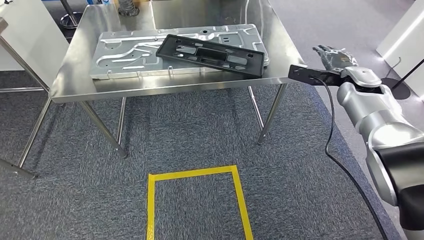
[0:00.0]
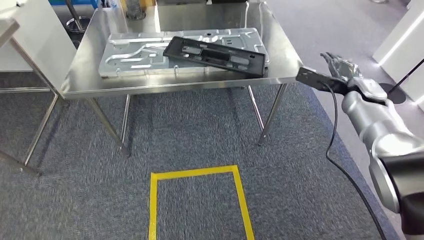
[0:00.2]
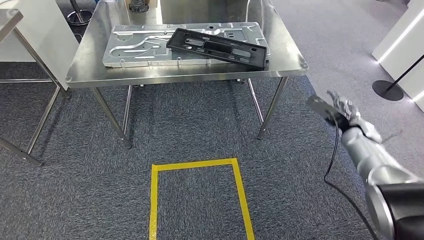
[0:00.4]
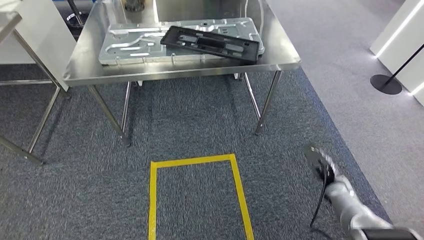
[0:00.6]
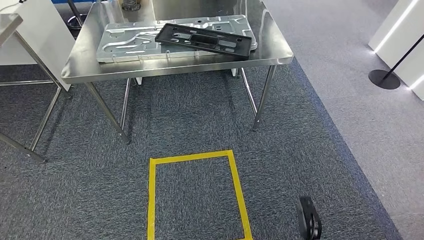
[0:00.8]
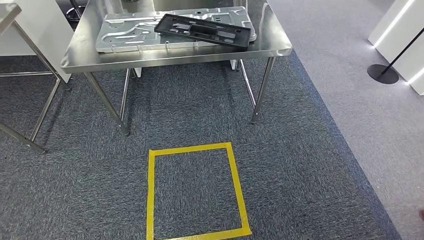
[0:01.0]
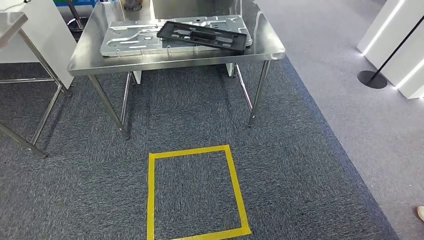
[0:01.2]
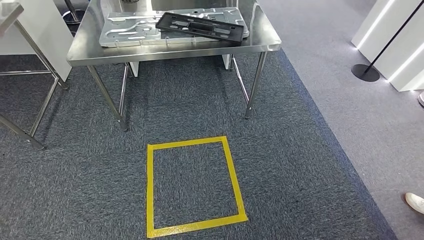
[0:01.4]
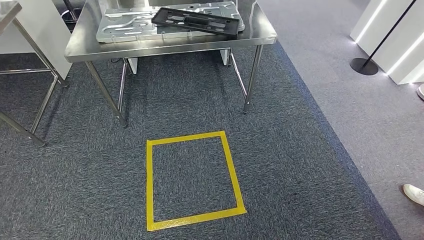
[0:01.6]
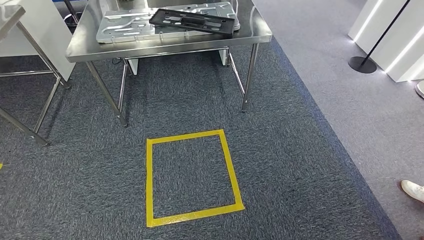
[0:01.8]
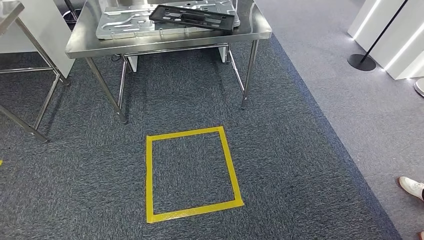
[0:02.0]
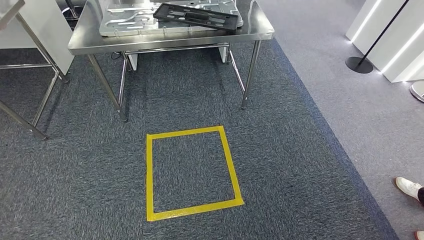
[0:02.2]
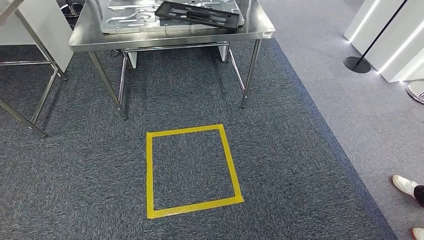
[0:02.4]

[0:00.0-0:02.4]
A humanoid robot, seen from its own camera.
Step, 0:00.0 to 0:02.4: Return to the initial position at the shelf.
